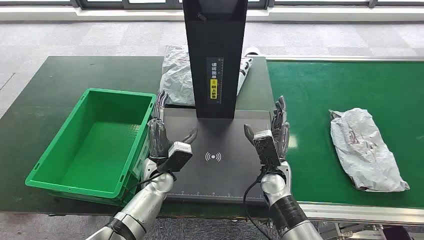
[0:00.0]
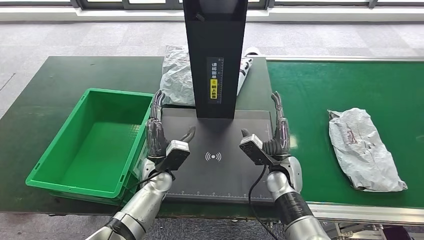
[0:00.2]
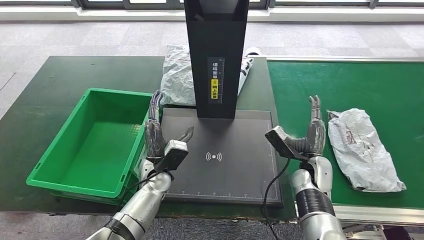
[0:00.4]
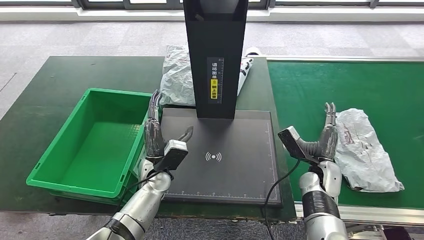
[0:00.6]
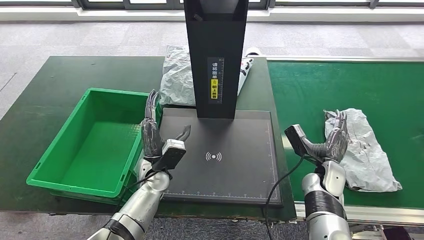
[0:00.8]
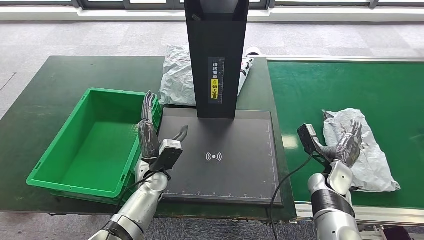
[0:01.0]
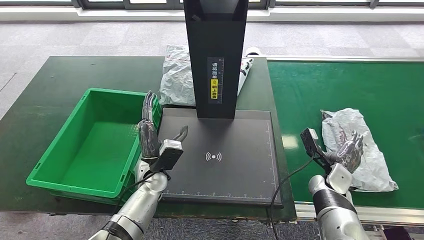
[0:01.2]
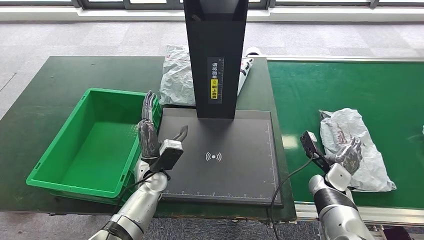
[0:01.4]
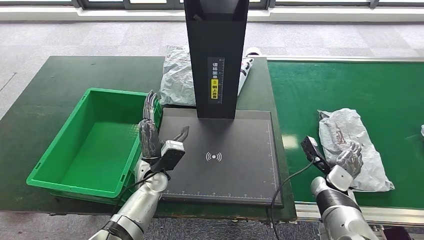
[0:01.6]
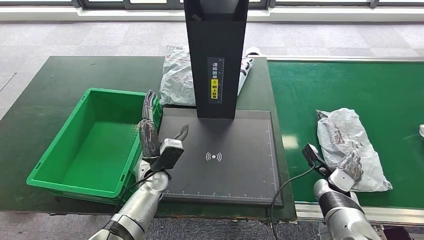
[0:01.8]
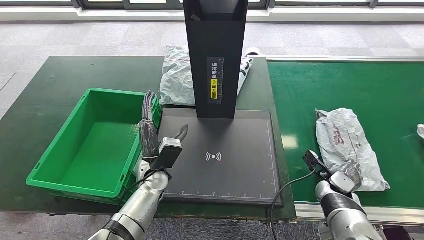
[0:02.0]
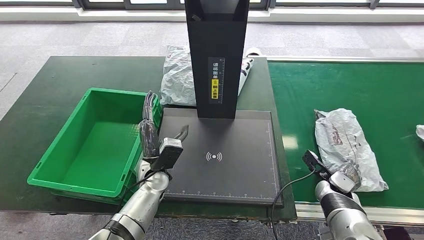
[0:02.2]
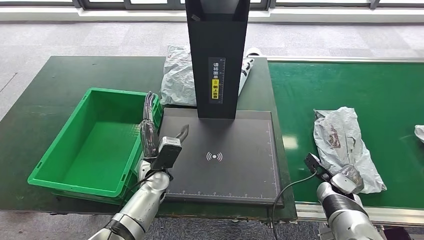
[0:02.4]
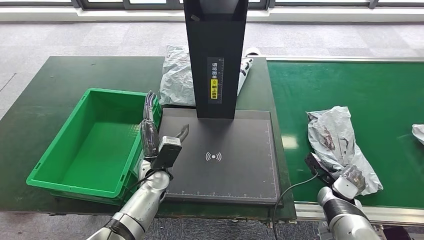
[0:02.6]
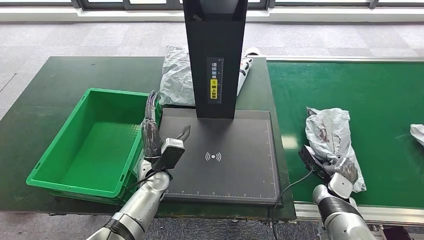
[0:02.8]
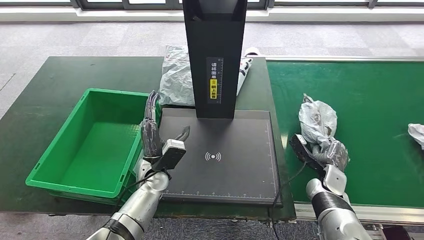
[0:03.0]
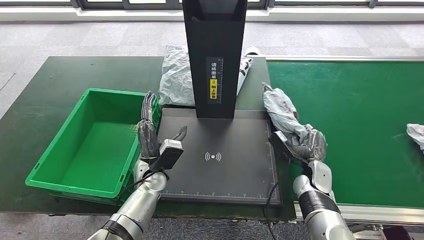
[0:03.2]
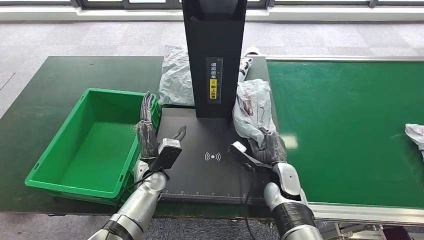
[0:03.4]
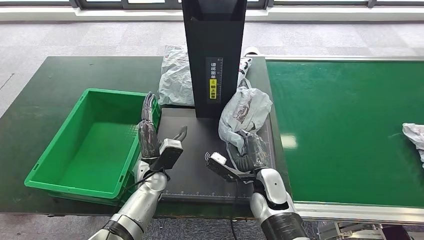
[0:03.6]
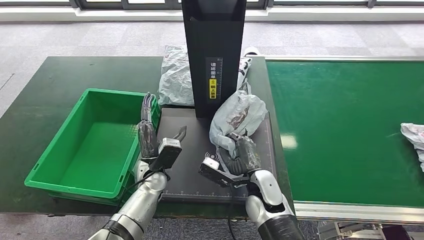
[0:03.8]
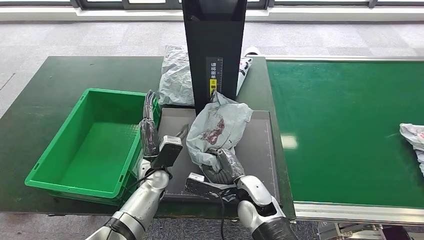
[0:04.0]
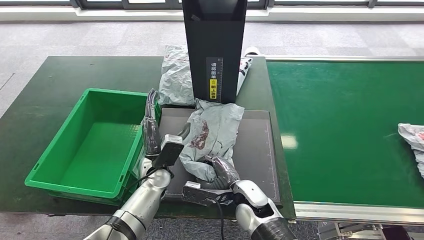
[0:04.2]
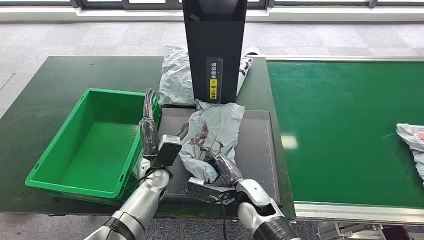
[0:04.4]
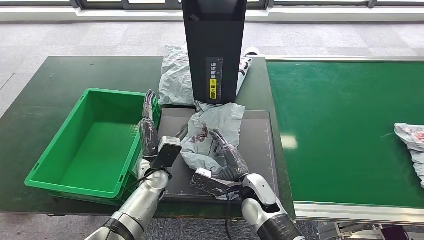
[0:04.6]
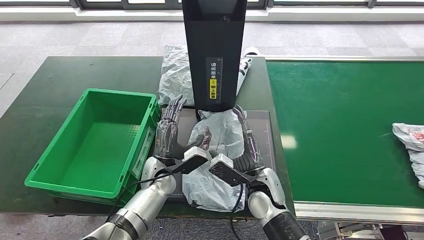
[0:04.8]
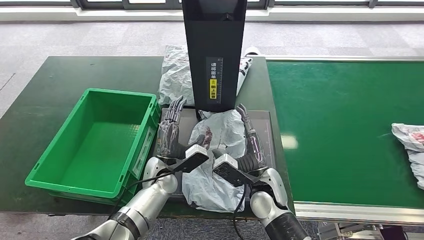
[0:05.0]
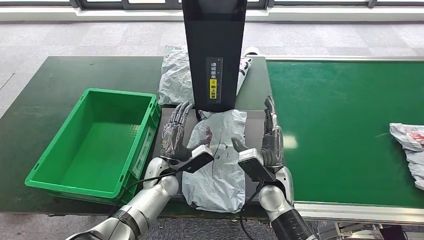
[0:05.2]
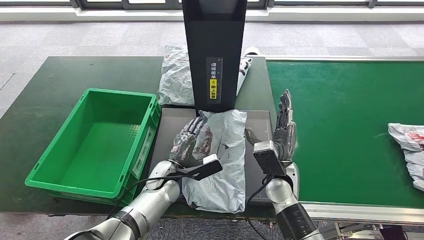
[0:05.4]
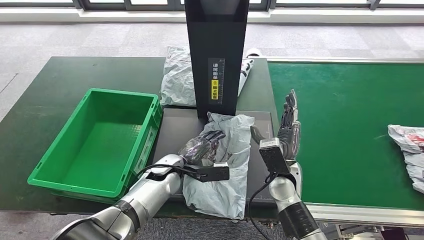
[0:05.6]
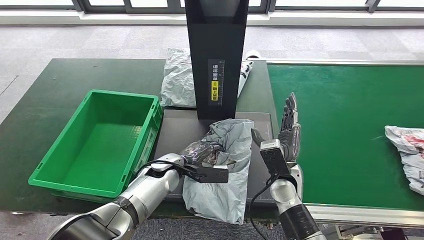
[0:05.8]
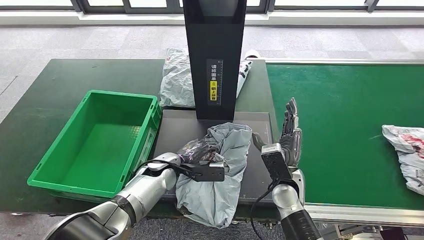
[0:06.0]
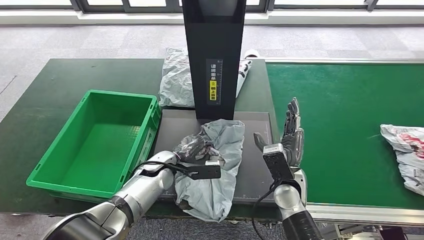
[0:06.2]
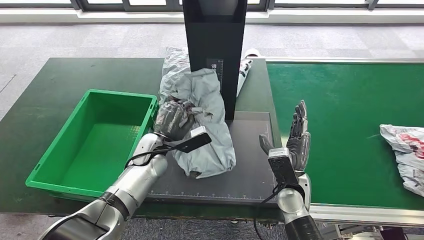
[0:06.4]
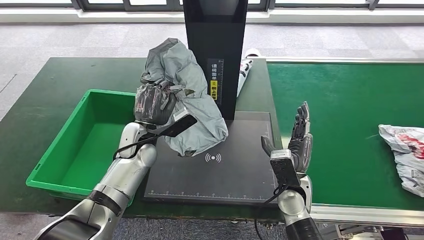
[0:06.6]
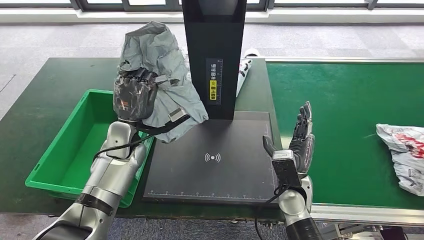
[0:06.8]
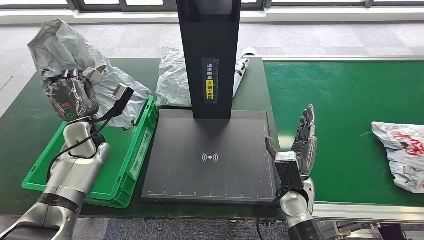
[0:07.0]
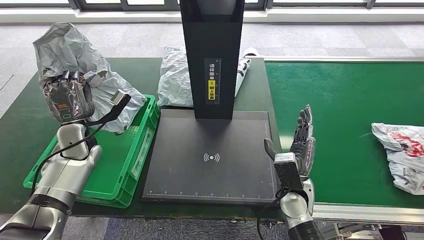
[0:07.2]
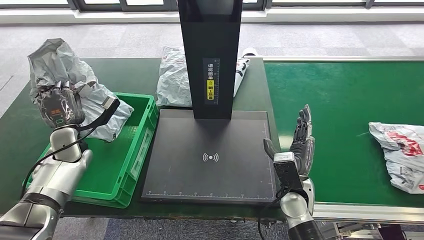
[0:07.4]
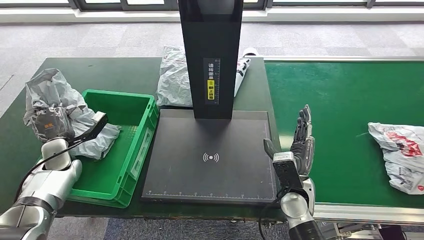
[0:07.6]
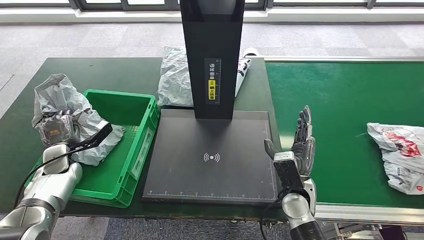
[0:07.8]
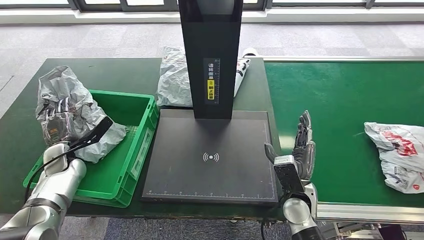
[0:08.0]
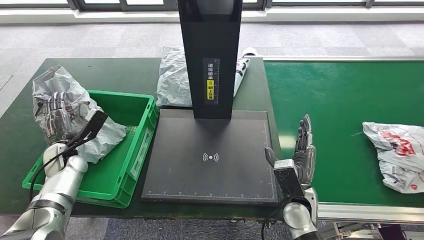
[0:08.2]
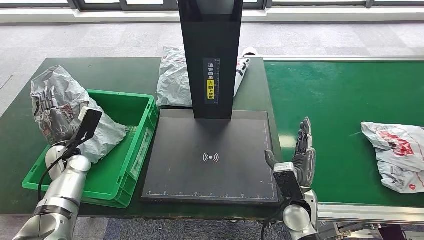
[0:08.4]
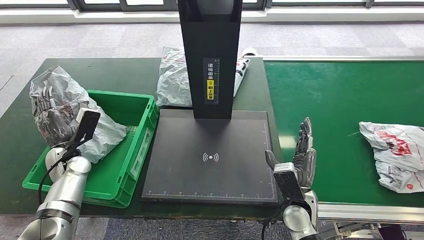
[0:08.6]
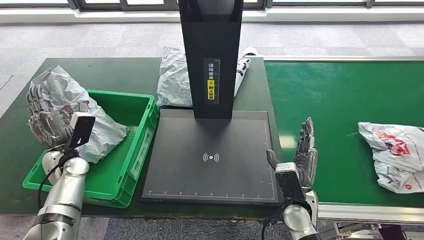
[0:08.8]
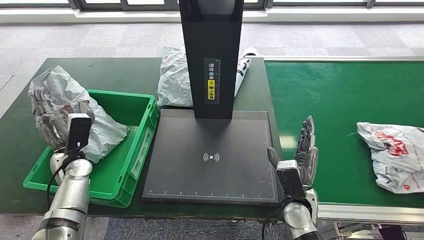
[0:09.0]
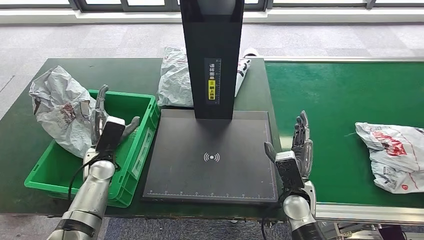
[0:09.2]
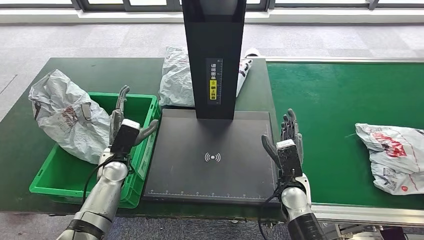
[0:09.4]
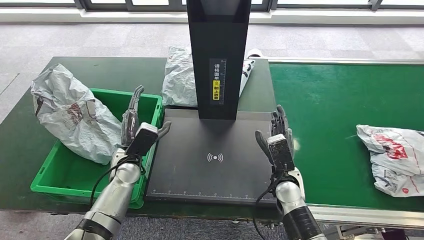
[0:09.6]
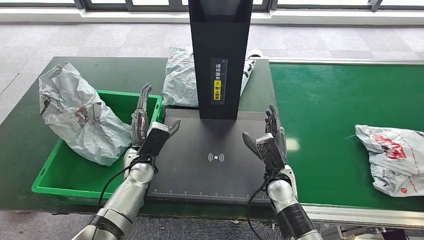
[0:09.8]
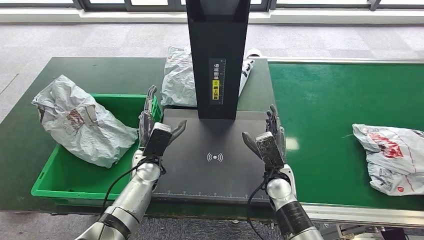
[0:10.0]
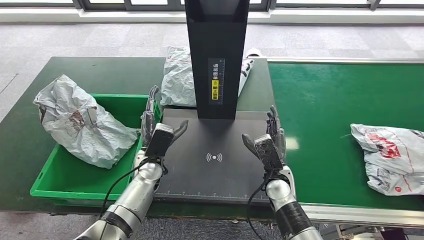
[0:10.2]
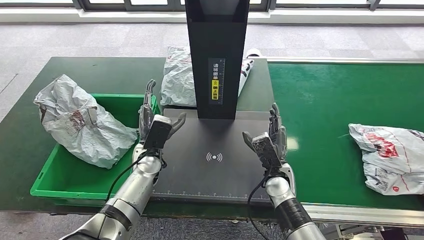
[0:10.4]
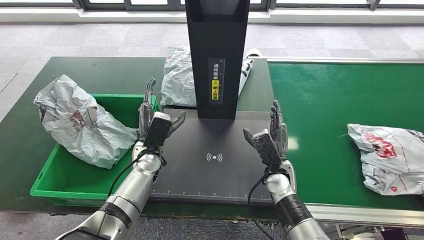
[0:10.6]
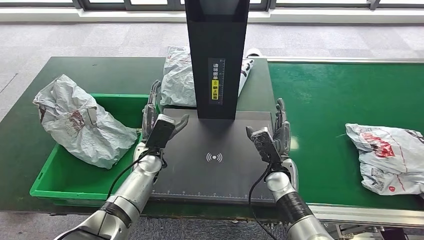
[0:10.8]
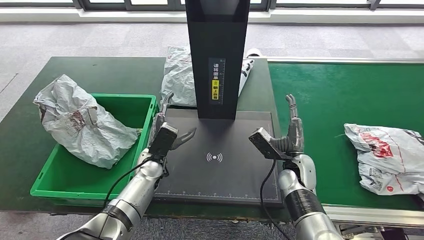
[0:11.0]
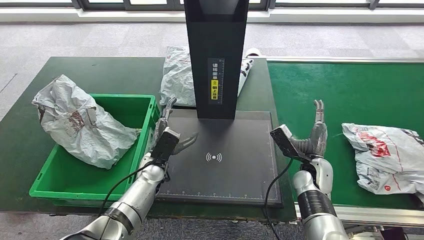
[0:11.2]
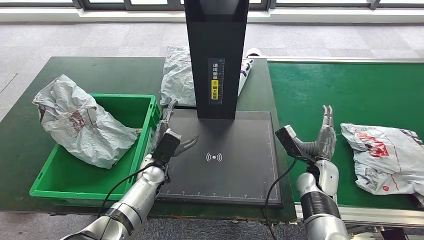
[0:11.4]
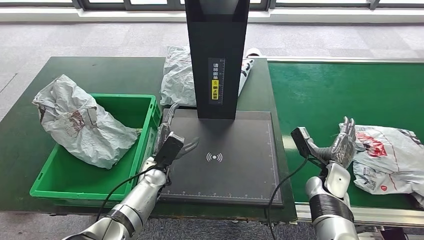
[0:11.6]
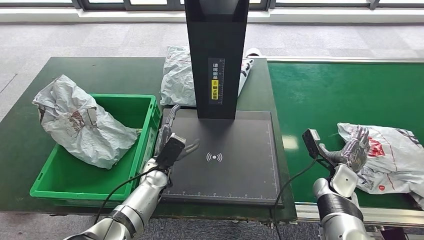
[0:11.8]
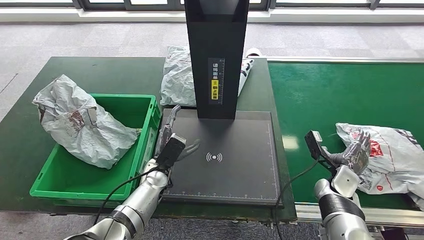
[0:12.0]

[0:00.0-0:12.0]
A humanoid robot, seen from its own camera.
Step, 0.0 to 3.2 s: Take the parcel off the conveyor belt.
Step, 3.4 to 5.2 s: Place the parcel onto the inbound machine.
Step, 5.4 to 6.8 s: Pick up the parcel from the inbound machine.
Step, 7.0 to 9.6 s: Put the parcel inside the courier box.
3.0 to 4.4 s: The right hand moves to the left, some 20 cm.
7.6 to 9.0 s: The left hand shifts approximately 5 cm to the right.
10.4 to 12.0 s: The left hand goes about 5 cm downward, while the right hand moves to the right, roughly 15 cm.

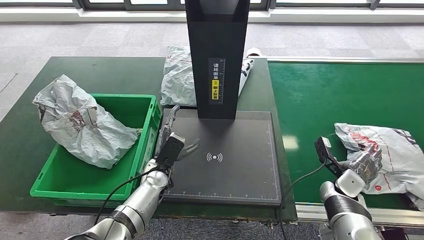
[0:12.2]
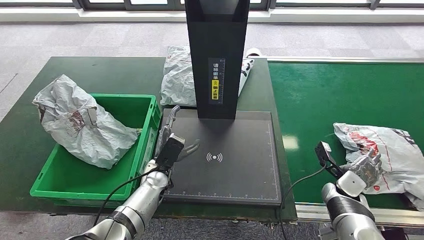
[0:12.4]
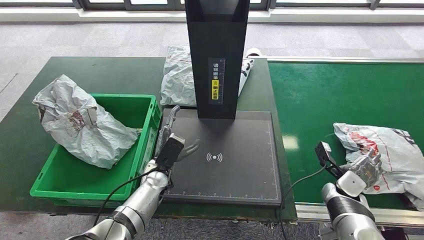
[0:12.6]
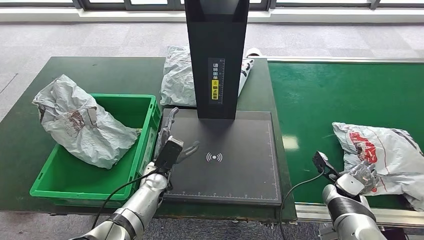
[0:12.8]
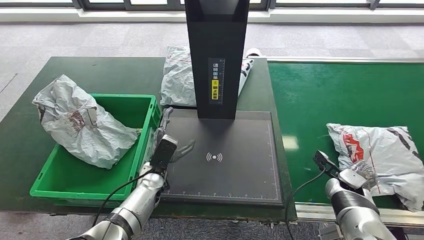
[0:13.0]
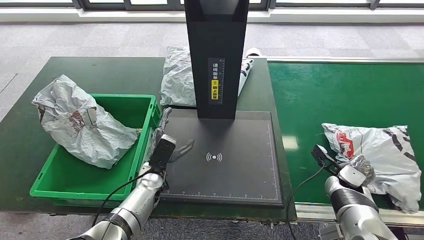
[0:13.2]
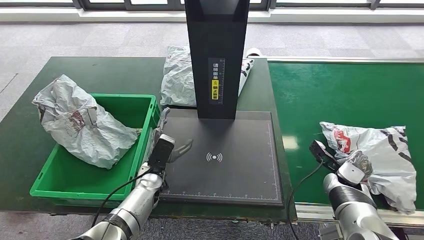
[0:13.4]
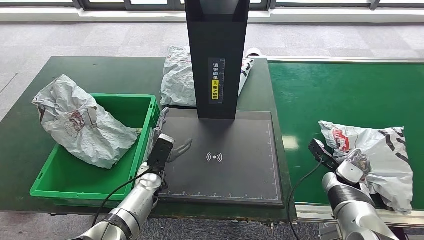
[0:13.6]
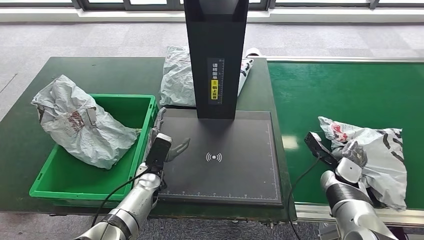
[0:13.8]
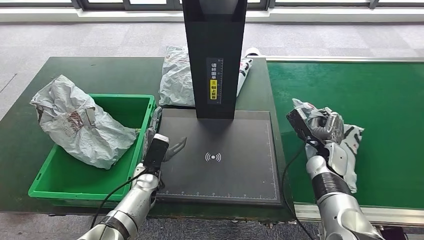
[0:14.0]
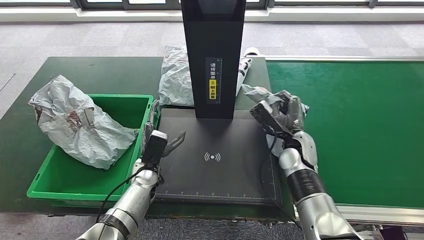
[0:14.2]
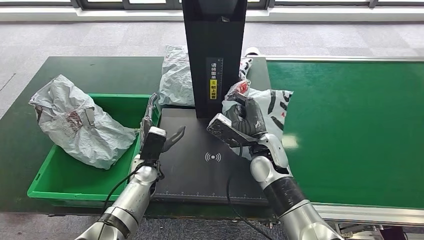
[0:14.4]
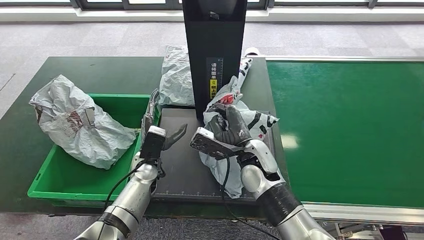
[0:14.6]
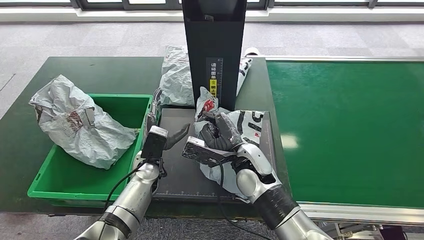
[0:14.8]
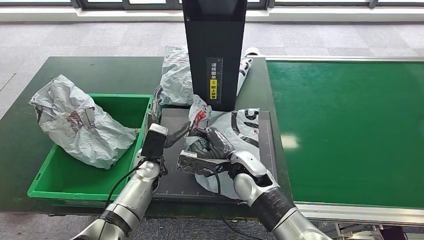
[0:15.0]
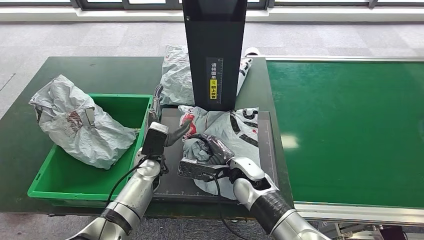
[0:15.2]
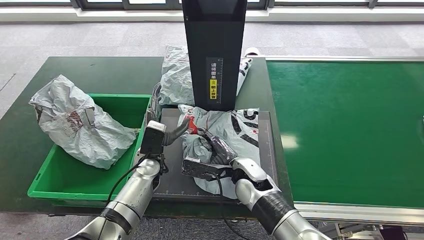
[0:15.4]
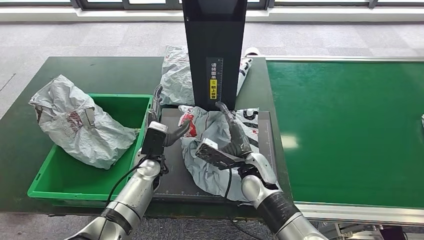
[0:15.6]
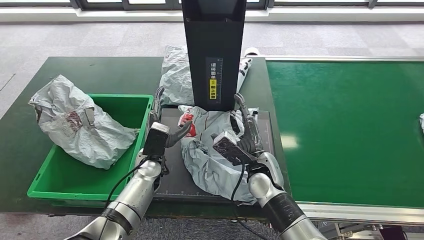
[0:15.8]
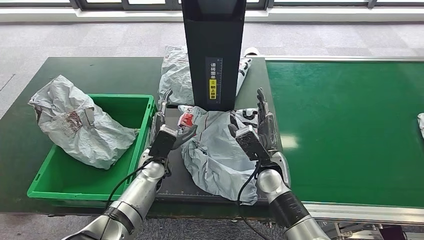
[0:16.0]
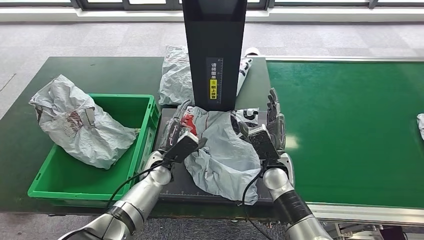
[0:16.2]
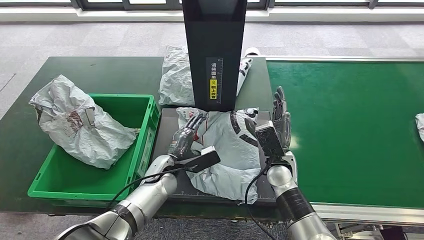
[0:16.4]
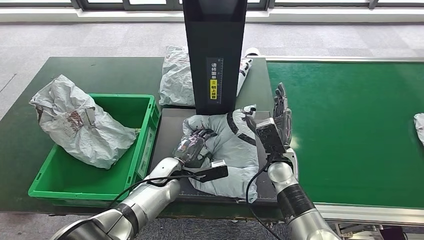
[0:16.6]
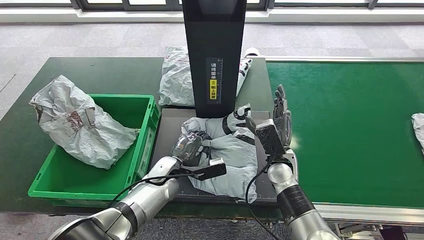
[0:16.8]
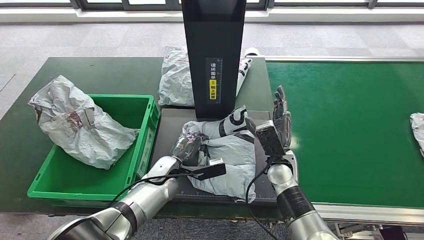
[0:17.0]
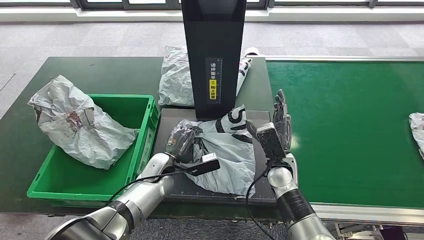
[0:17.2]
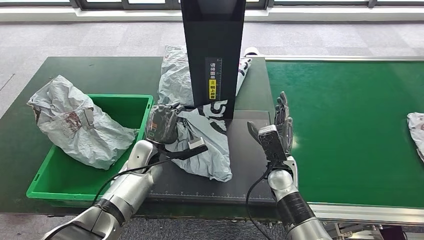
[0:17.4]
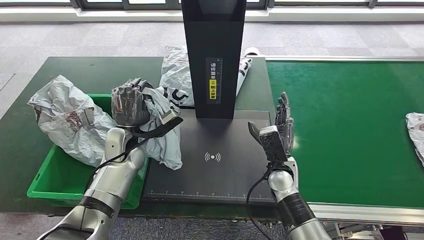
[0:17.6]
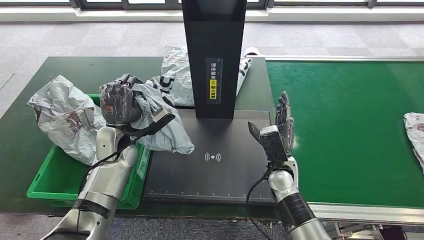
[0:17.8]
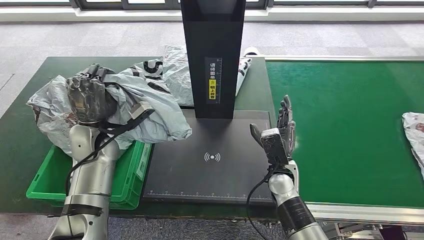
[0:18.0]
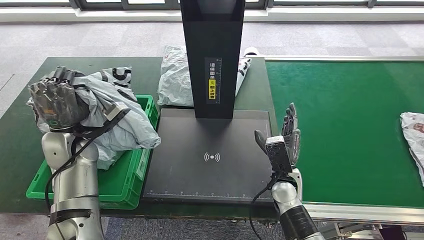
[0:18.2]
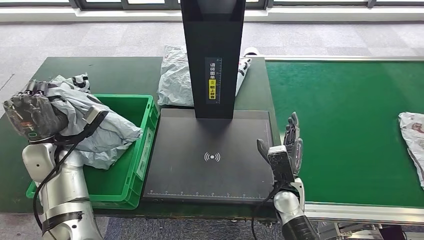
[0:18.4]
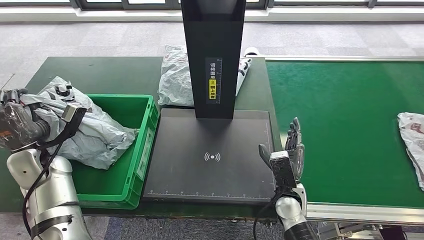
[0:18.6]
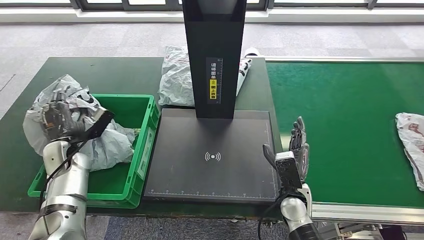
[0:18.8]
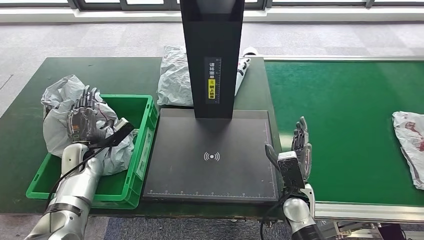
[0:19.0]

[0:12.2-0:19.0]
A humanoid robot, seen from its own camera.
Step, 12.2 to 14.4 s: Pick up the parcel from the conveyor belt.
Step, 14.6 to 16.8 s: Place the parcel onto the inbound machine.
Step, 17.0 to 18.0 s: Pick up the parcel from the inbound machine.
15.0 to 16.2 s: The right hand goes about 10 cm to the right.
16.2 to 17.6 s: The left hand shifts about 10 cm to the left and upward.
